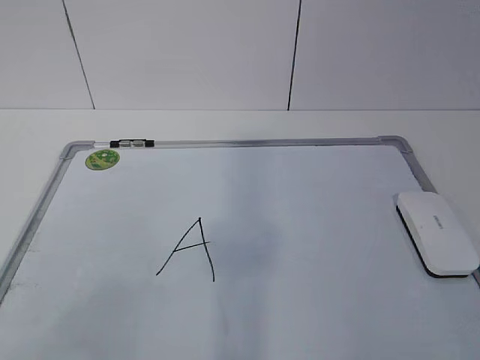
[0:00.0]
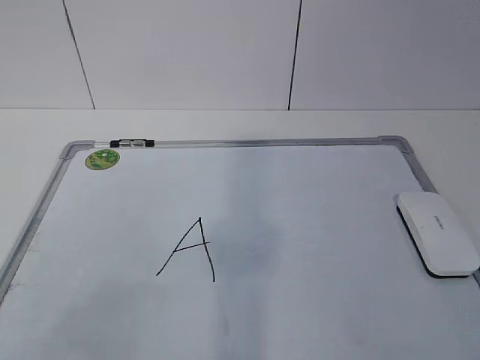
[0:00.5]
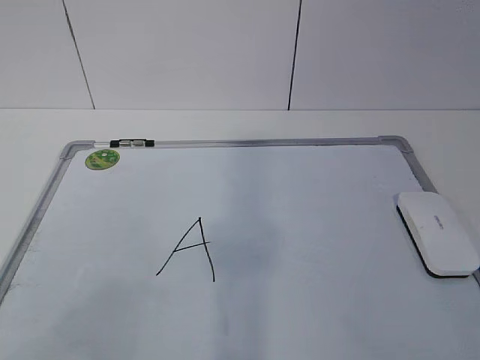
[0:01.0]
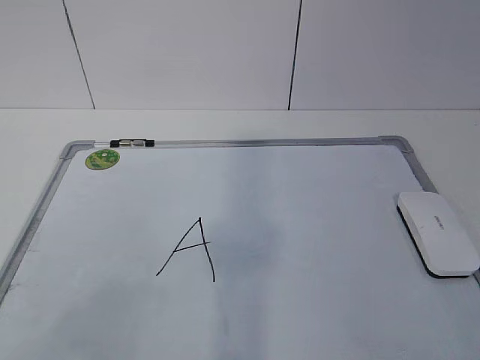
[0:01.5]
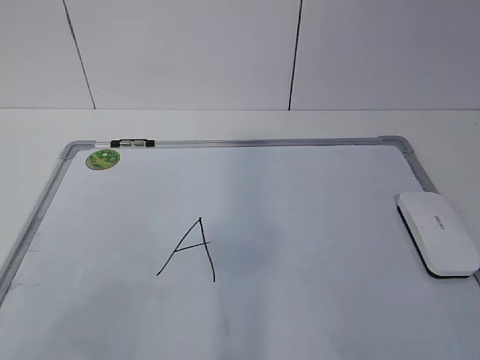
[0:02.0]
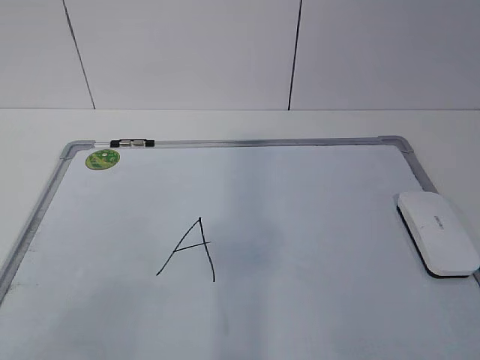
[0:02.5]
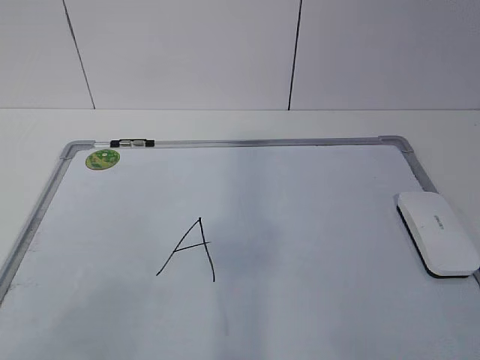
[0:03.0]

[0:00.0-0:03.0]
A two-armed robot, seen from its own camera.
Task of the whole recording: pick up the eraser on the blackboard and erase the letter "a".
0:00.0 to 0:01.5: Both grippers stay about where they are.
